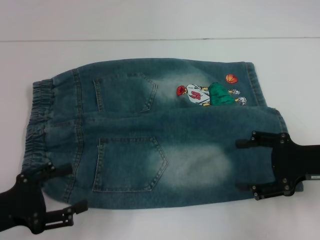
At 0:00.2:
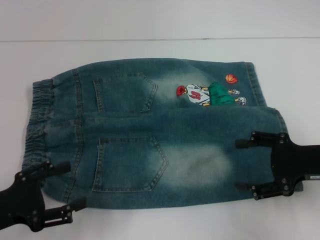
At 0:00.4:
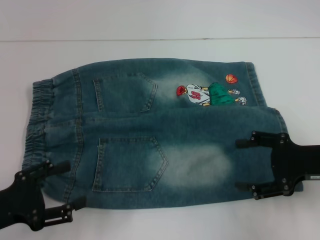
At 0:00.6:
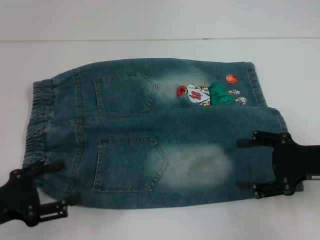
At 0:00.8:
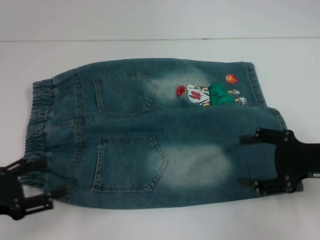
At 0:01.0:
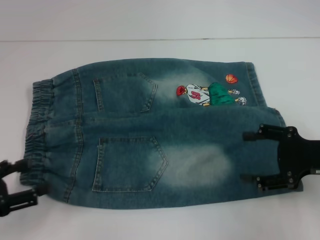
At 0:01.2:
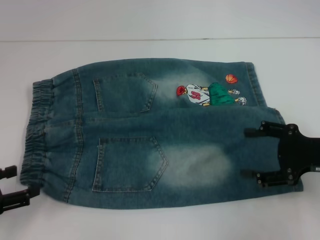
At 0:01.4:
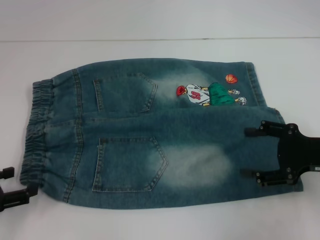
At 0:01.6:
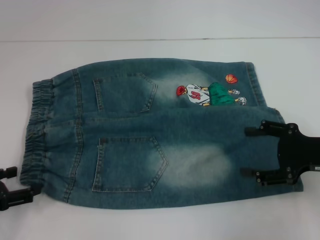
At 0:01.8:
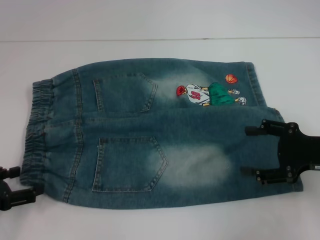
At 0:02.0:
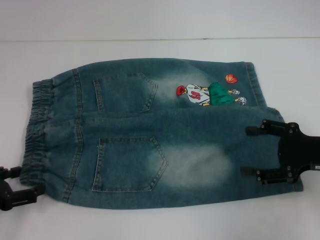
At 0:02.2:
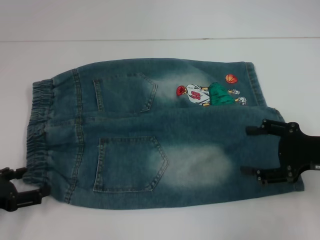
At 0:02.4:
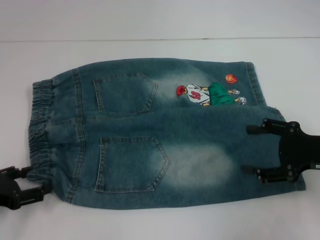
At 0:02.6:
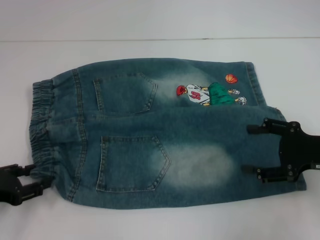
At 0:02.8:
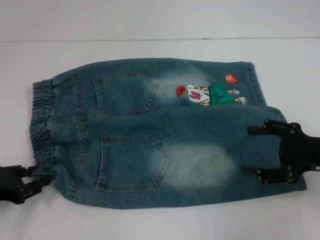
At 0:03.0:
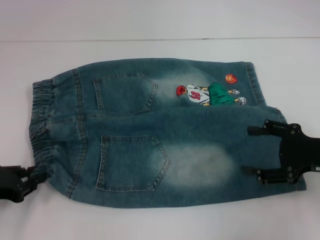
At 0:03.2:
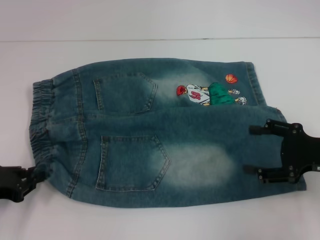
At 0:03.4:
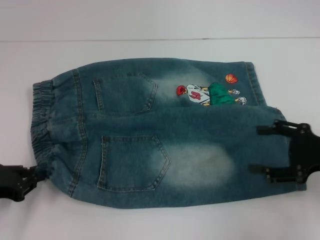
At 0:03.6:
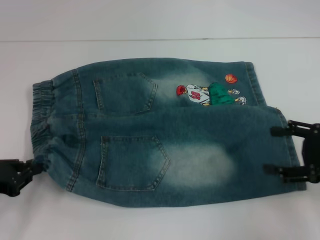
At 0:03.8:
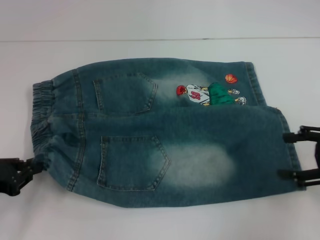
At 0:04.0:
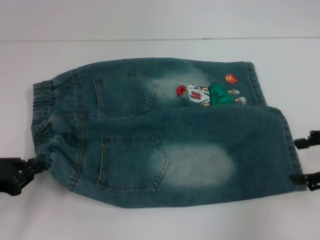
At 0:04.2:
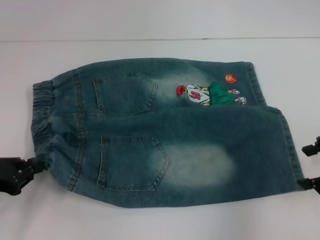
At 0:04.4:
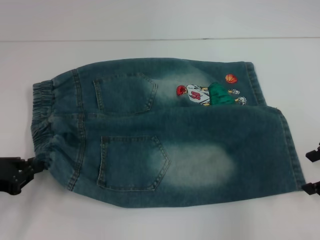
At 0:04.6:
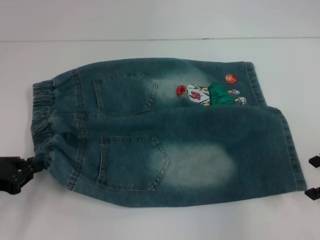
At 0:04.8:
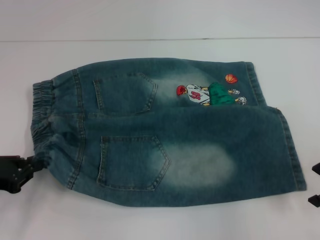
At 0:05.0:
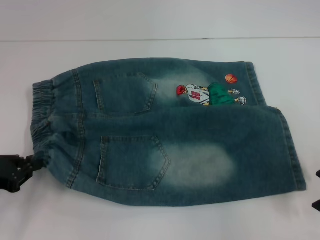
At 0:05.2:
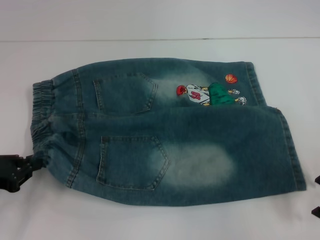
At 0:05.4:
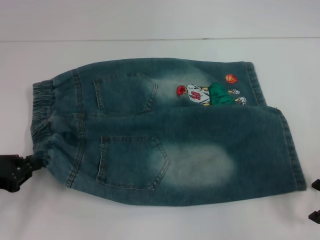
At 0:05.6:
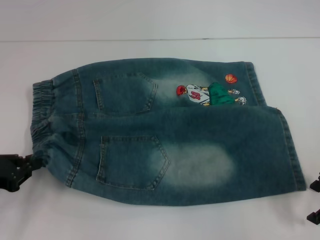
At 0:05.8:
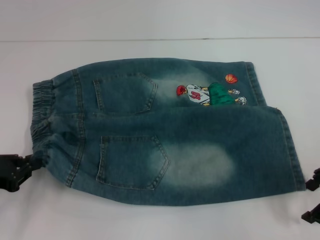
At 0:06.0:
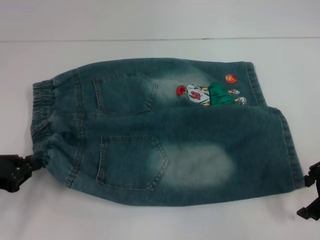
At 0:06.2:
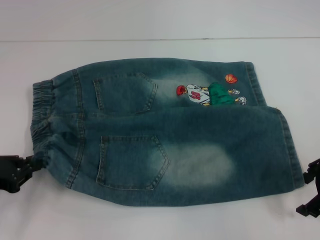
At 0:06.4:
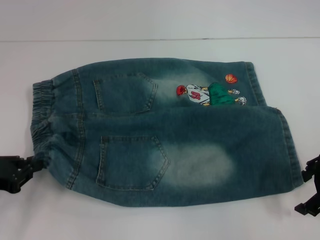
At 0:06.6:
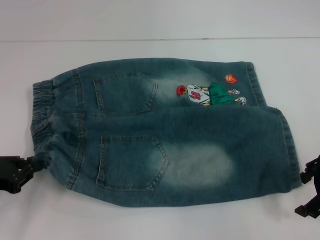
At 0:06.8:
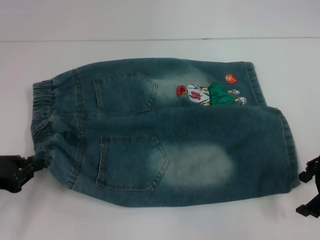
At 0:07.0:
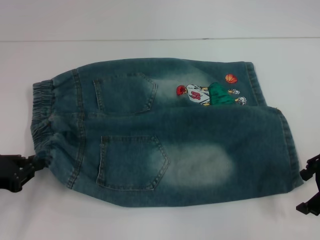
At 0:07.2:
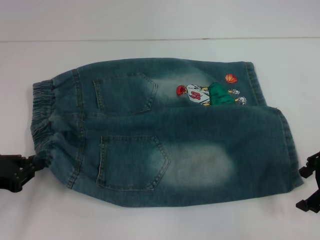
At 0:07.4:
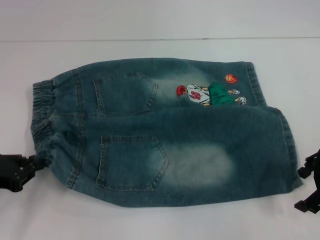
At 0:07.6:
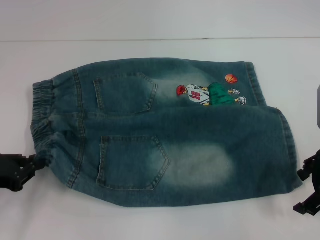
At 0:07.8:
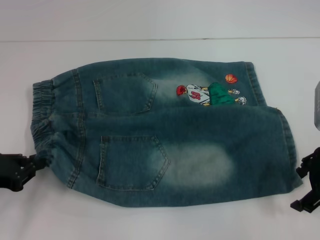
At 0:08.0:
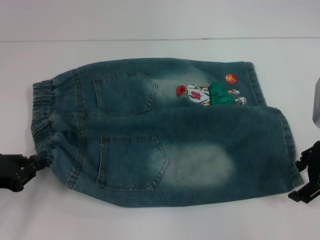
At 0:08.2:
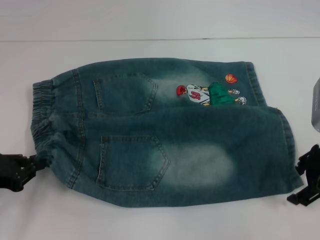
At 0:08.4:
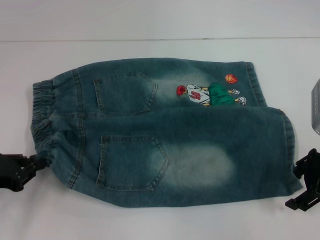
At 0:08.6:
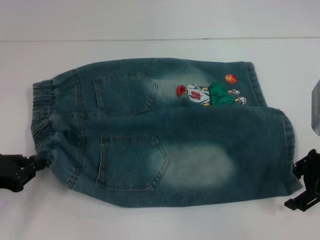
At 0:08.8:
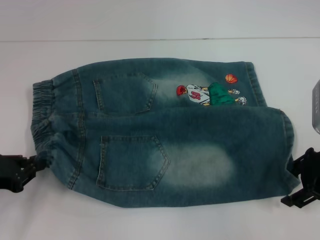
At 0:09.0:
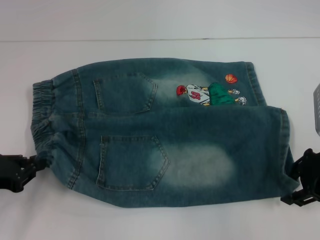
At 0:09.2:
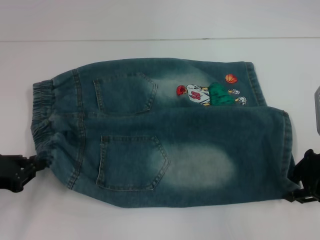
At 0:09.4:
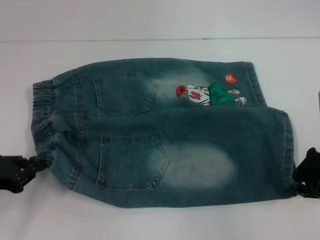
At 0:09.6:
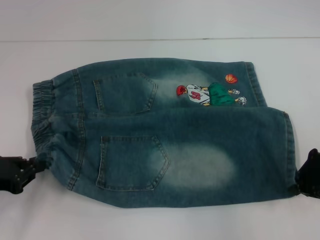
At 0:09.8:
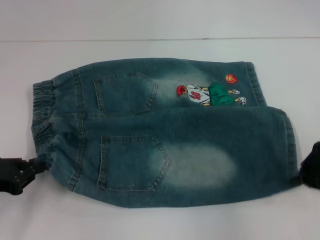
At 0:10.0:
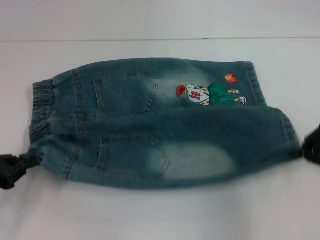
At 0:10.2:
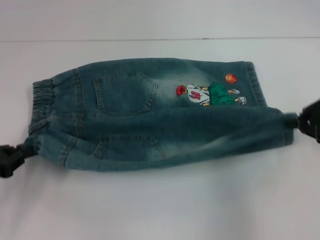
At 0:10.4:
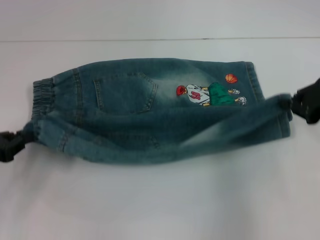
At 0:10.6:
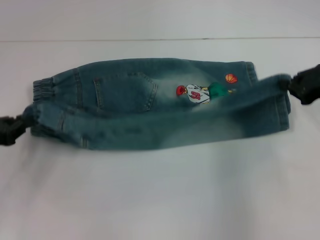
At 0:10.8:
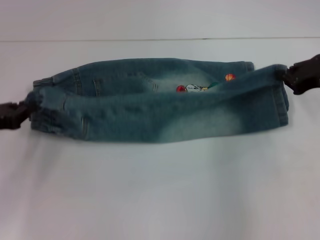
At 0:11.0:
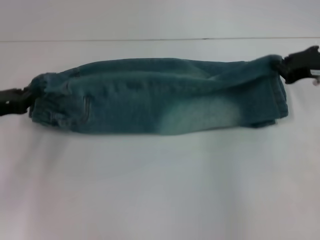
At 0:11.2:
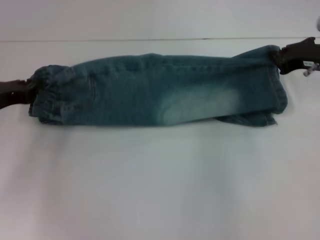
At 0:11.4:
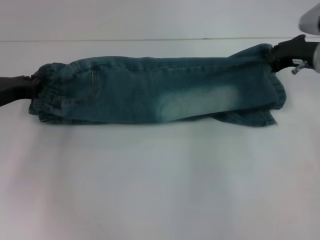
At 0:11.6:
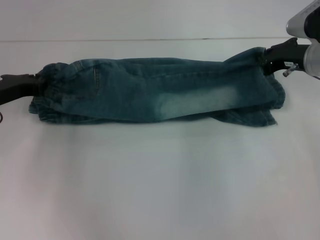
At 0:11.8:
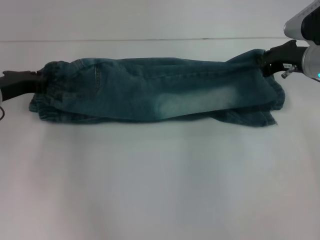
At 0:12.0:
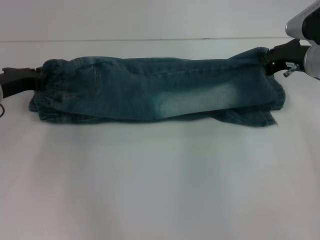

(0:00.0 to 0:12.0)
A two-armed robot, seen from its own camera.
Step, 0:00.0 - 0:03.2: Hold the lower left waistband with your left hand.
Step, 0:03.4 - 0:09.6: Grab the lower right pant leg with your right hand.
0:01.6 - 0:03.0: The left gripper closes.
0:03.0 - 0:04.4: The right gripper goes approximately 5 cm upward, while the left gripper closes its fingers.
0:04.4 - 0:09.0: The grippers move only a little.
0:09.0 - 0:10.4: The right gripper shifts by roughly 5 cm, and closes.
0:10.4 - 0:12.0: The right gripper shifts roughly 10 cm forward and to the left; the left gripper moves forward and to the right, about 15 cm.

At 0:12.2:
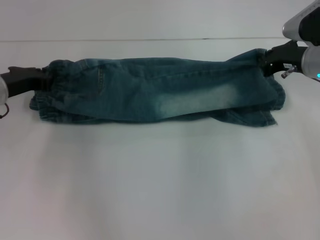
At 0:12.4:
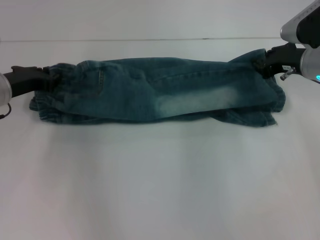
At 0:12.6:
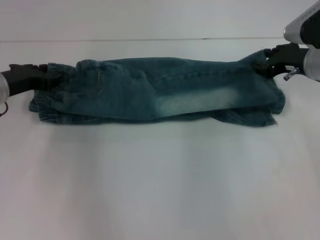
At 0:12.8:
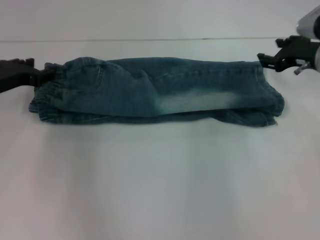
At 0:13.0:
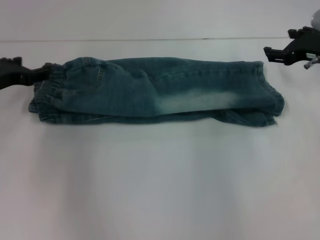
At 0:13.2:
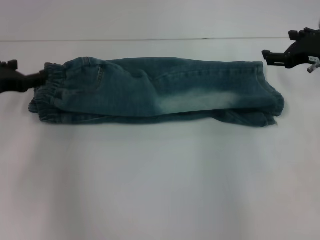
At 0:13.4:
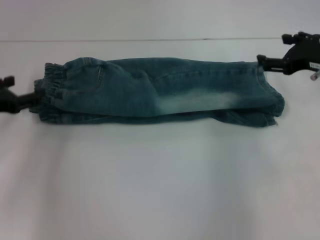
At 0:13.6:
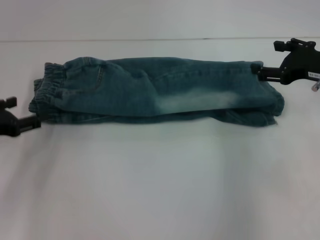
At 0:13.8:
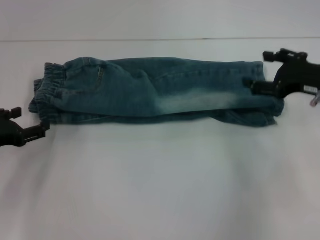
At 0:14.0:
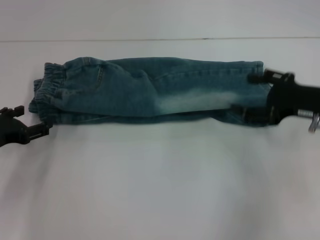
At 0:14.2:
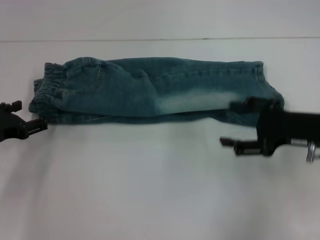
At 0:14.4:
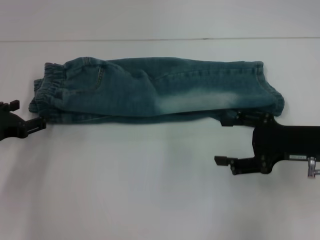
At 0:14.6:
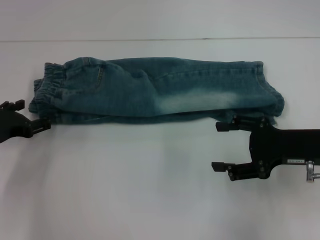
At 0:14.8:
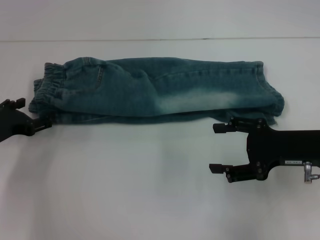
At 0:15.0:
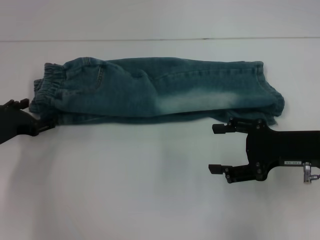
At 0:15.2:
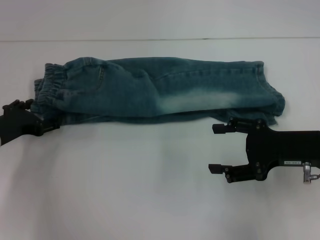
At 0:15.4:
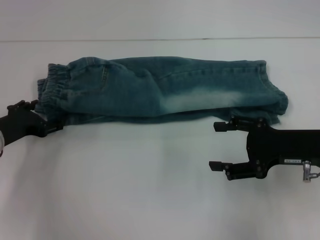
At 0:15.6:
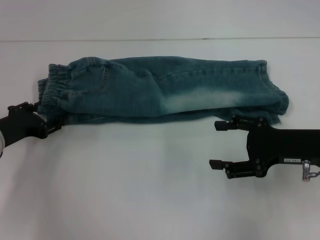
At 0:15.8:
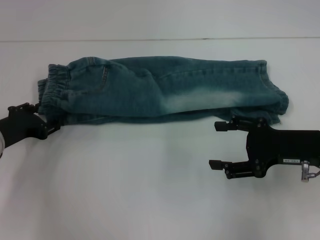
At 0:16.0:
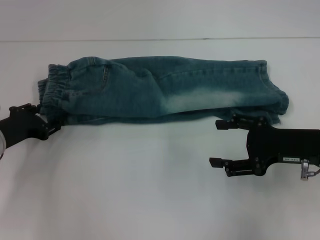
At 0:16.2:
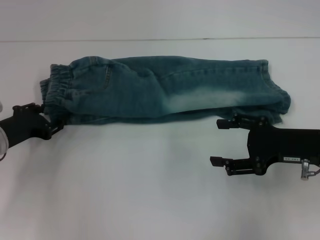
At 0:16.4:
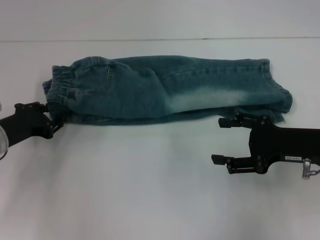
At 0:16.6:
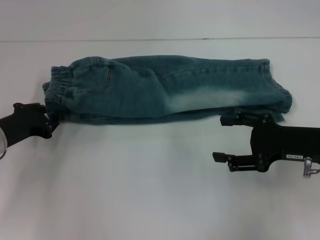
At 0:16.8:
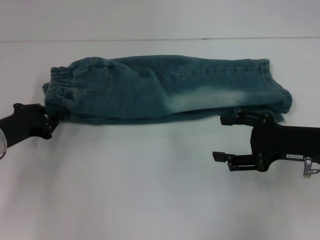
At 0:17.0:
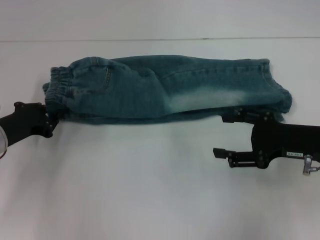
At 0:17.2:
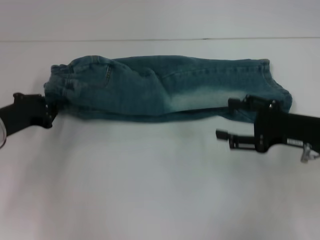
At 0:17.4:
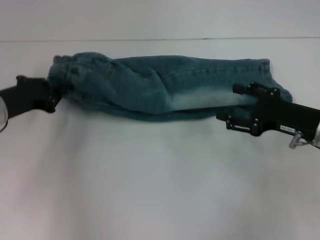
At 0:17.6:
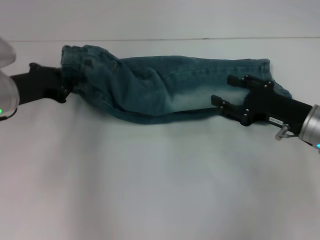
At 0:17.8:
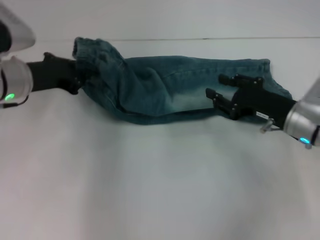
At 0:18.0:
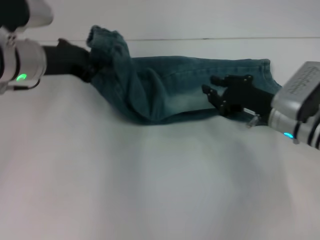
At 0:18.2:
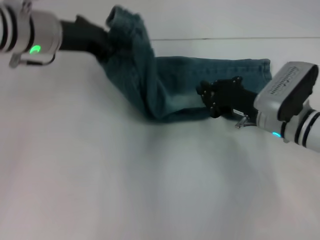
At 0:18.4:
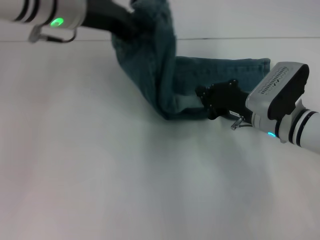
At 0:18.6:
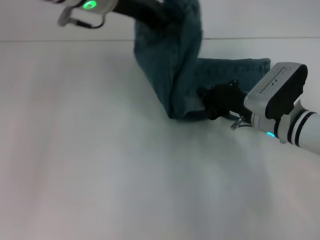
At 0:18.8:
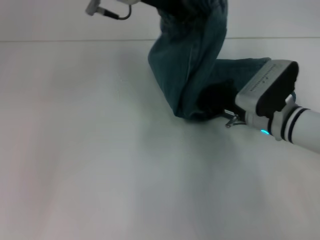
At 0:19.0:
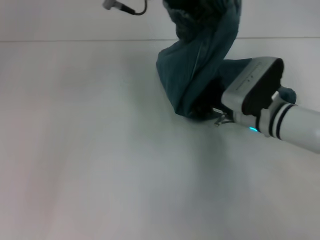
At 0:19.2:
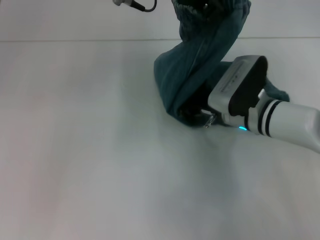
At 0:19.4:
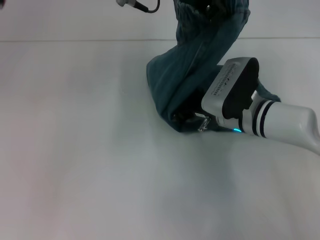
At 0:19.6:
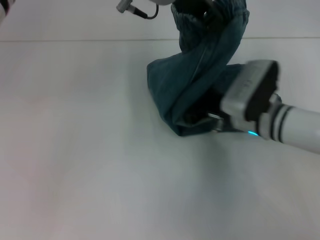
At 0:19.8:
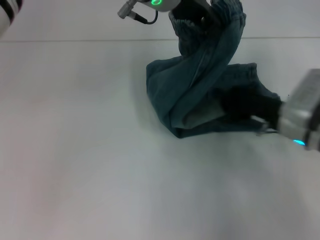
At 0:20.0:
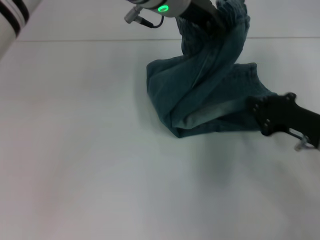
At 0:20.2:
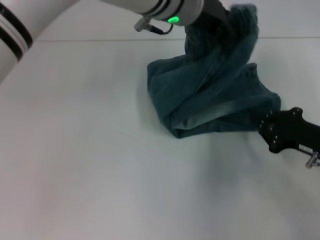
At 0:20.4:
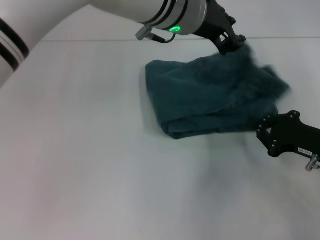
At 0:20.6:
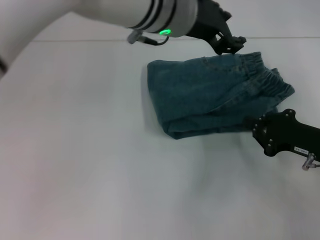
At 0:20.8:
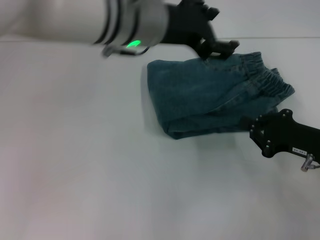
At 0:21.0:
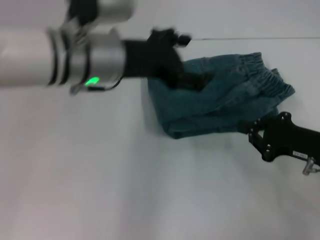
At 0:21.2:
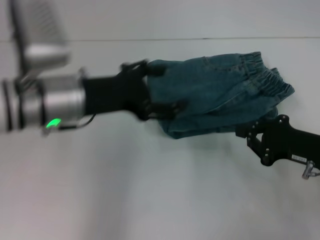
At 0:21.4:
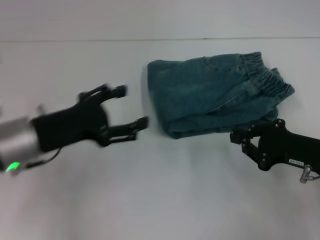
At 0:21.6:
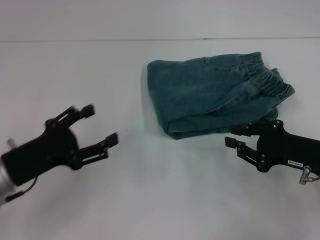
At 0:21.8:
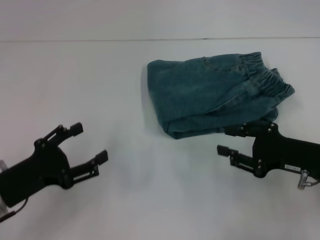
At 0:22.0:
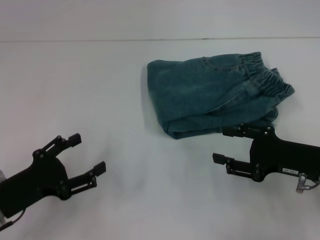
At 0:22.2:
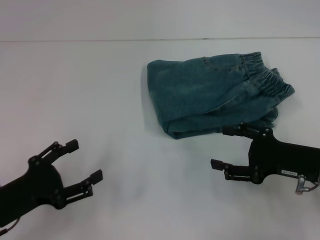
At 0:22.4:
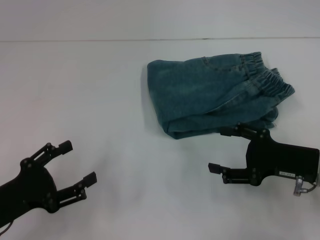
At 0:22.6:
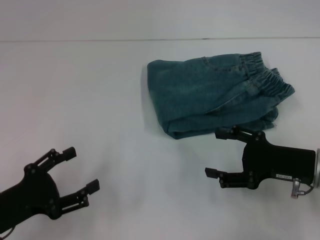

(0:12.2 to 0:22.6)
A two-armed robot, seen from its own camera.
Step, 0:13.0 - 0:17.0: Hold the waistband with your left hand.
Step, 0:17.2 - 0:19.4: Press the middle of the pants with your right hand.
Step, 0:19.8 - 0:20.4: Fold to the right with your left hand.
0:12.2 - 0:13.6: The right gripper travels backward by roughly 5 cm, and opens; the left gripper heads backward, covering about 10 cm, and opens its fingers.
0:13.6 - 0:15.2: The right gripper is displaced backward by some 10 cm. The left gripper ends up roughly 5 cm from where it was.
0:15.2 - 0:16.6: The left gripper closes its fingers.
0:16.6 - 0:18.2: The left gripper is displaced upward, to the right and forward by some 20 cm. The right gripper heads to the left and forward, covering roughly 10 cm, and closes up.
0:18.2 - 0:19.6: The left gripper moves to the right and upward, about 15 cm.
0:19.6 - 0:21.2: The left gripper is displaced to the left, downward and backward by roughly 20 cm, and opens up, while the right gripper heads to the right and backward, covering approximately 15 cm.
0:21.2 - 0:22.6: The left gripper goes about 20 cm backward, to the left and downward, while the right gripper opens its fingers.
